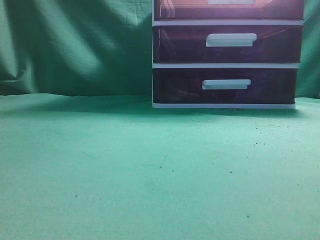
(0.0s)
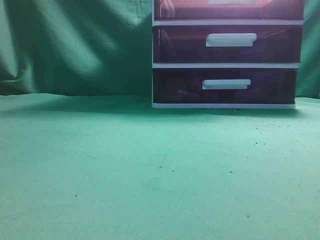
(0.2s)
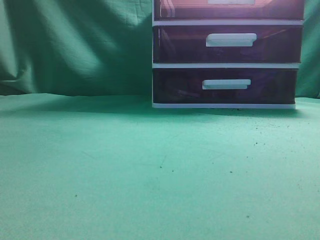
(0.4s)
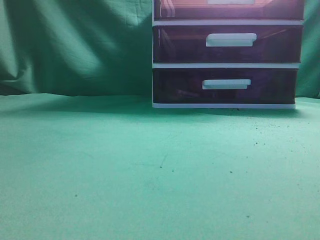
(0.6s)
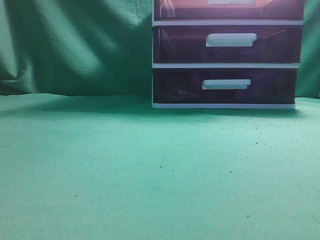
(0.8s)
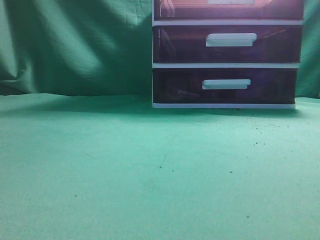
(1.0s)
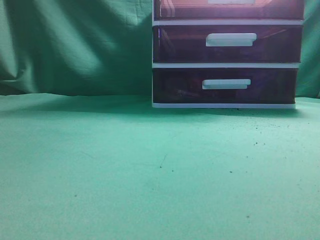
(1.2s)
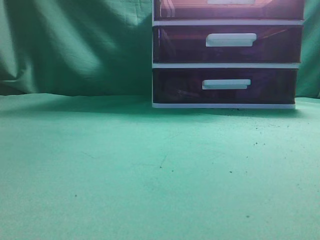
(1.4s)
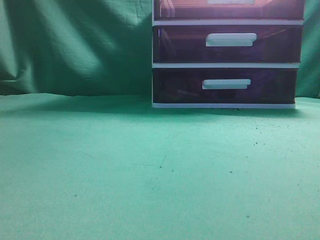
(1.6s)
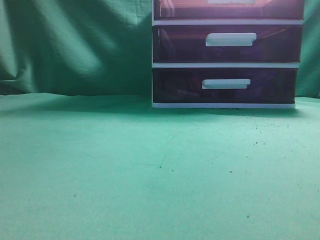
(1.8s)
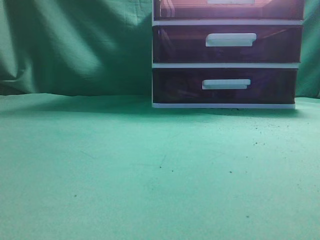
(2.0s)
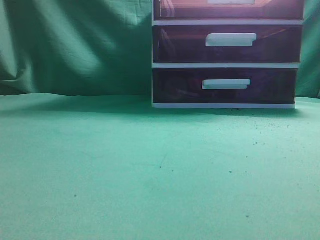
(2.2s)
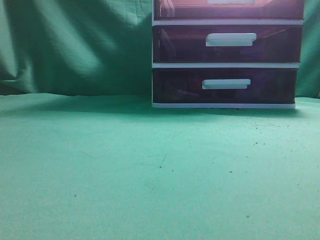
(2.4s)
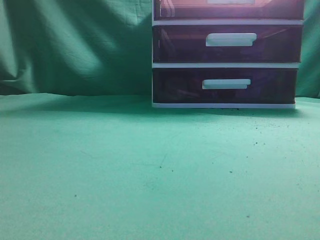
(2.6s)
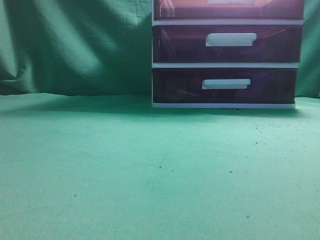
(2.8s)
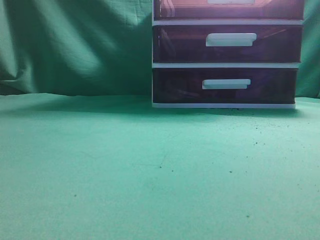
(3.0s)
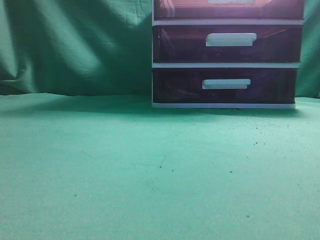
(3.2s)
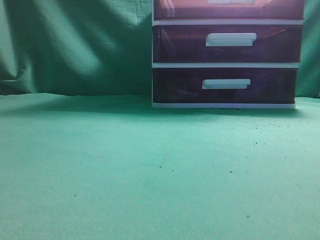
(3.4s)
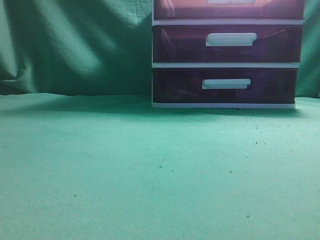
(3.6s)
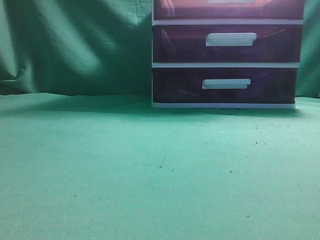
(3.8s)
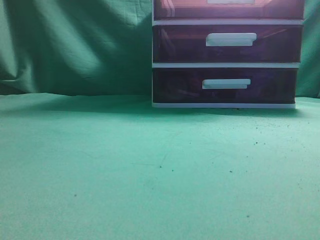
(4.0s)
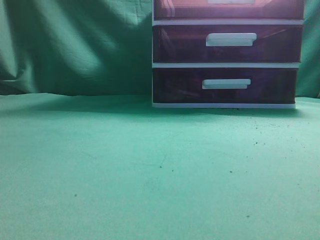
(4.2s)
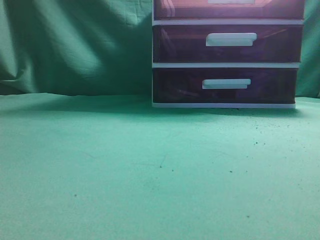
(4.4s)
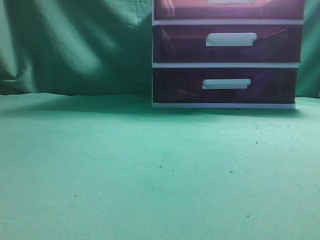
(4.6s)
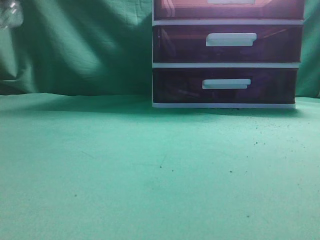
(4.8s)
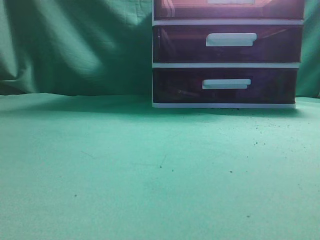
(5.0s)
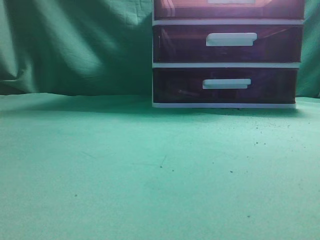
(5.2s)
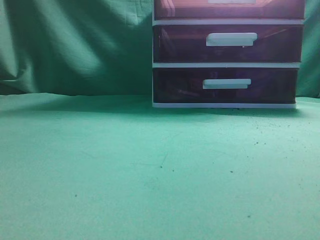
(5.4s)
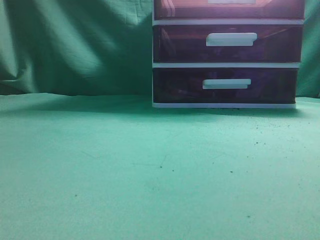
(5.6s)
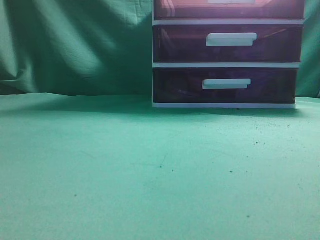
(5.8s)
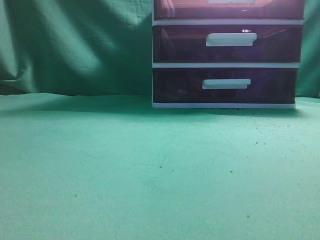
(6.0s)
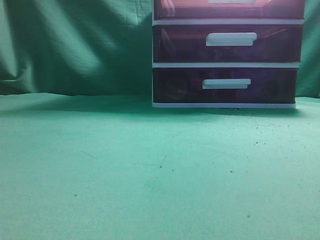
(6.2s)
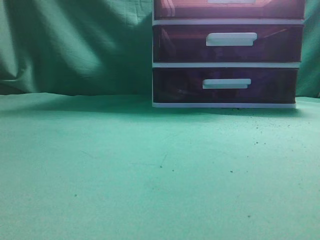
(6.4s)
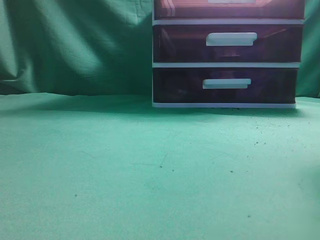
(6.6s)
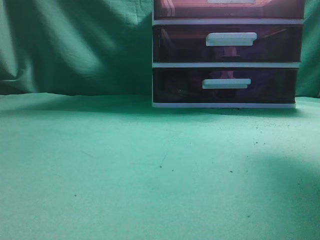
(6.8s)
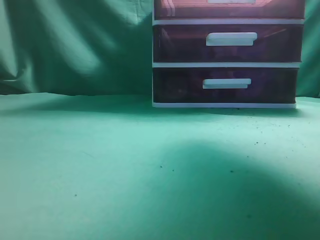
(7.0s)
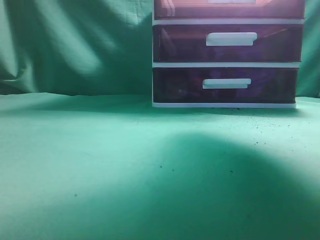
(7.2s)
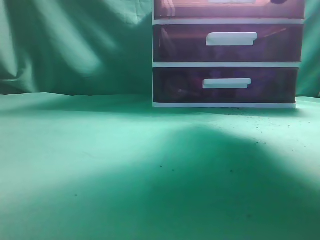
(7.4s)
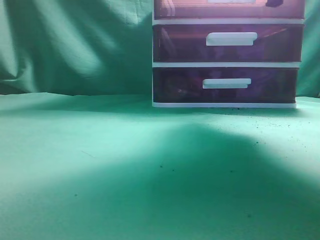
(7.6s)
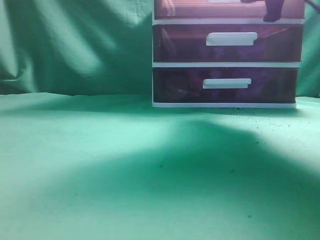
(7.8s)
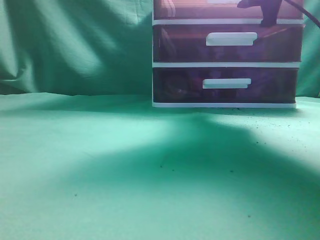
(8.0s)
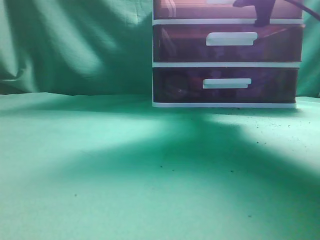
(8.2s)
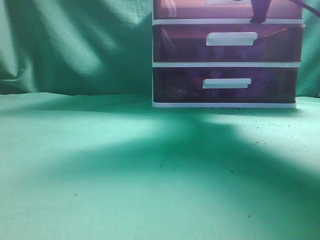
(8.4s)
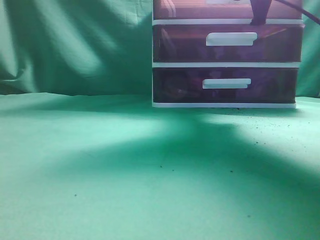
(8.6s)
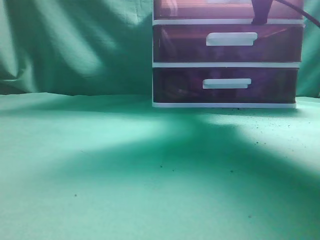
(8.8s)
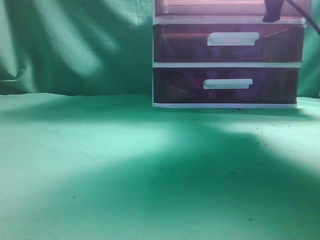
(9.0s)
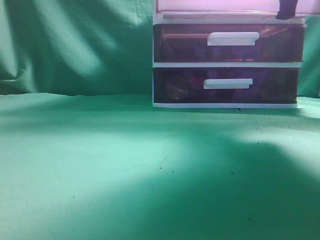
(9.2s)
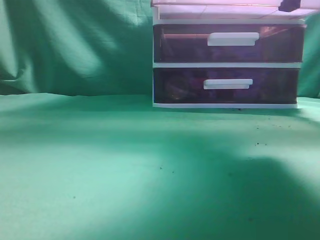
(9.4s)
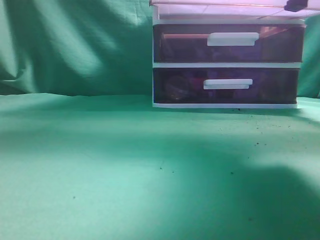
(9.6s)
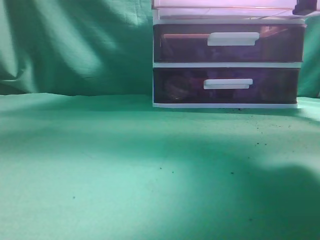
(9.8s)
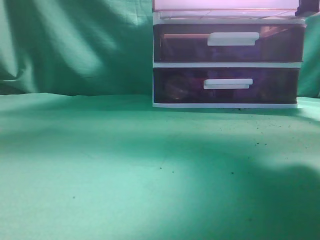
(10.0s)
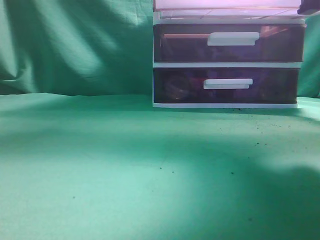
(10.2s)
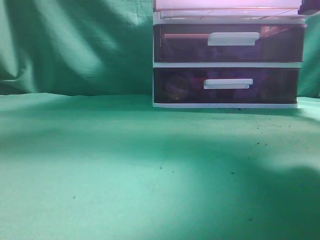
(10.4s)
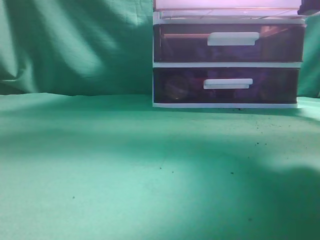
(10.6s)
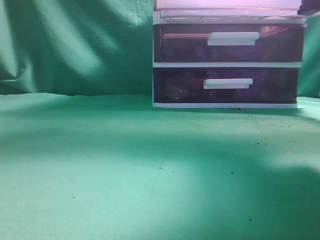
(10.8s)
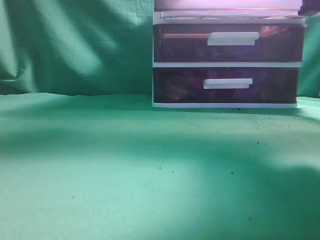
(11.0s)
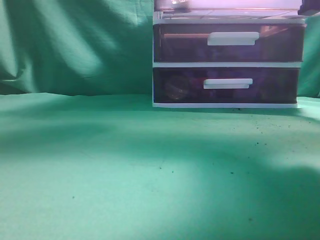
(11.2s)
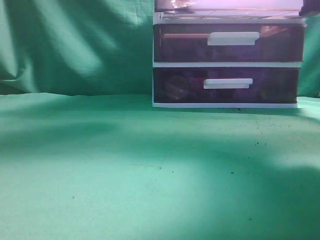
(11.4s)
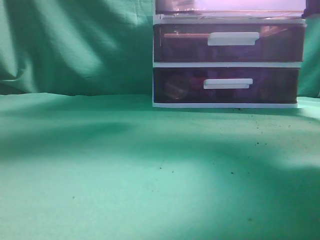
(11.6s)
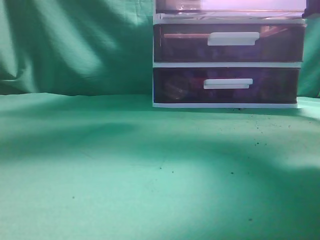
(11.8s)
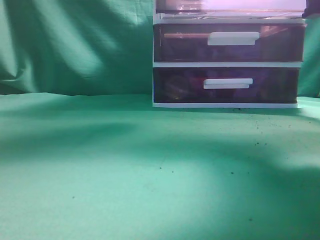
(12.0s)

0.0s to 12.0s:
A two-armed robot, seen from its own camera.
Task of the whole recording: place the water bottle into the drawer.
Step, 0.0s to 10.4s: Open the drawer.
6.0s to 7.6s: The right gripper is displaced forward by roughly 30 cm, and opens its fingers.
7.6s to 9.0s: The right gripper closes up.
9.0s to 10.4s: The left gripper travels upward by about 5 cm; the right gripper goes approximately 10 cm backward.
10.4s to 12.0s: The left gripper travels forward, to the right and downward by about 20 cm, and opens up.

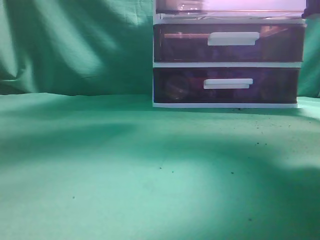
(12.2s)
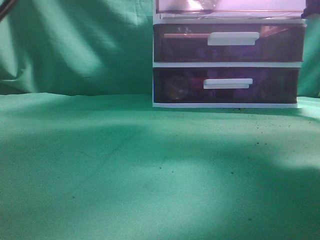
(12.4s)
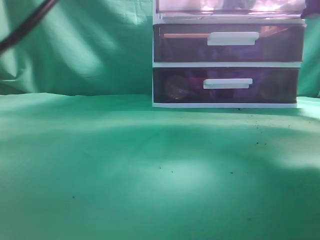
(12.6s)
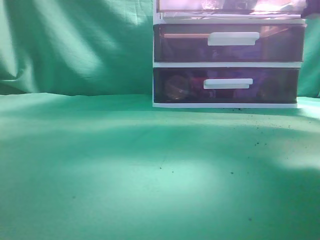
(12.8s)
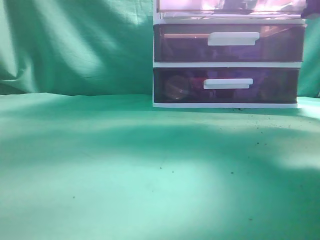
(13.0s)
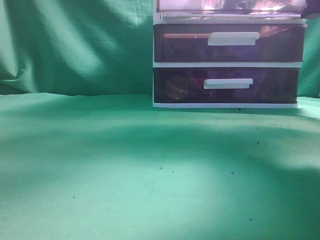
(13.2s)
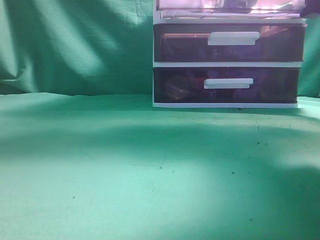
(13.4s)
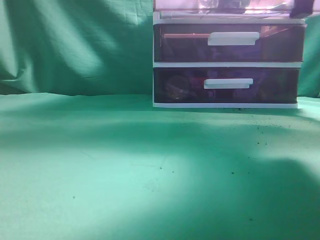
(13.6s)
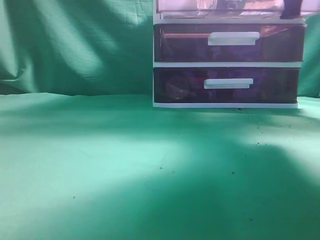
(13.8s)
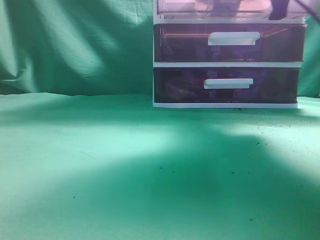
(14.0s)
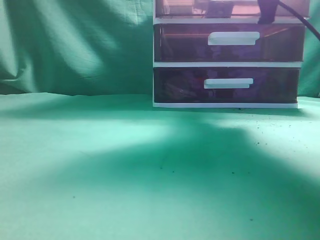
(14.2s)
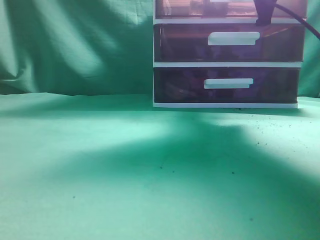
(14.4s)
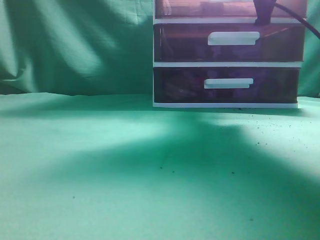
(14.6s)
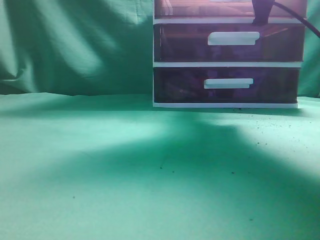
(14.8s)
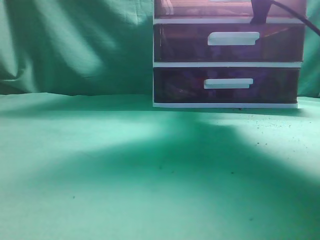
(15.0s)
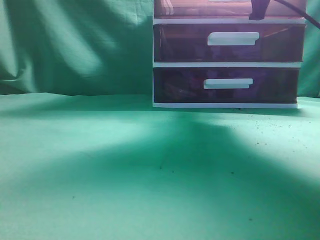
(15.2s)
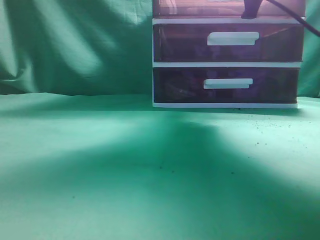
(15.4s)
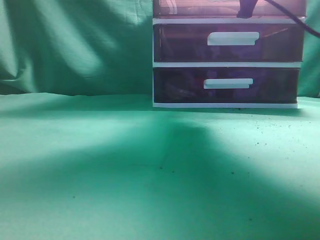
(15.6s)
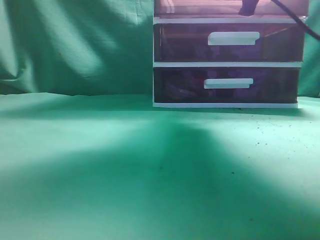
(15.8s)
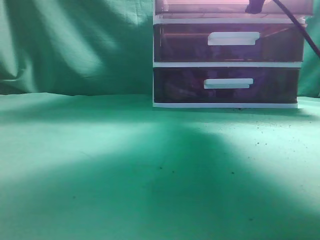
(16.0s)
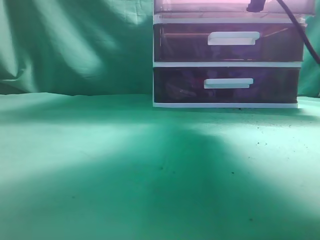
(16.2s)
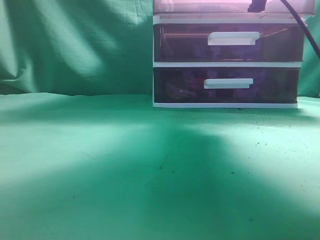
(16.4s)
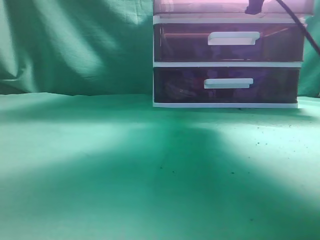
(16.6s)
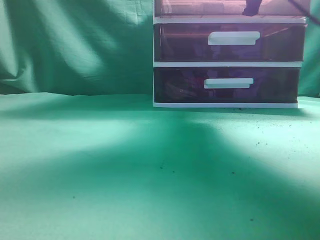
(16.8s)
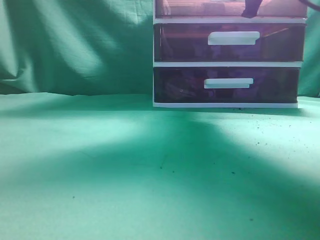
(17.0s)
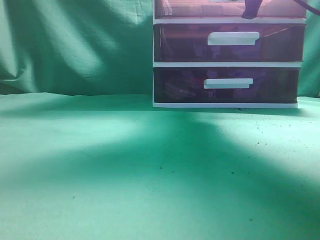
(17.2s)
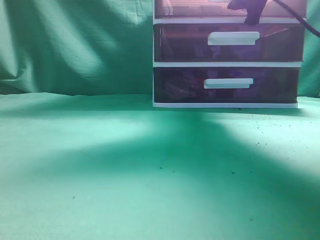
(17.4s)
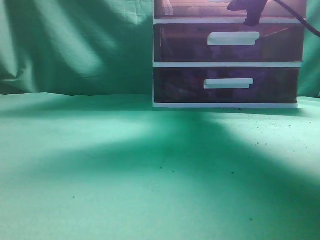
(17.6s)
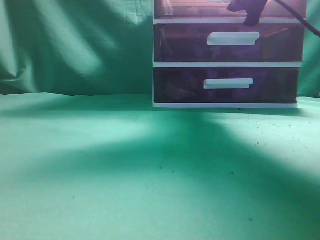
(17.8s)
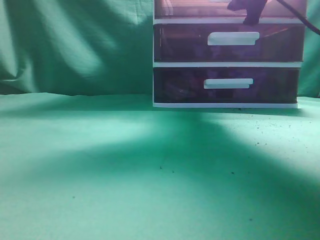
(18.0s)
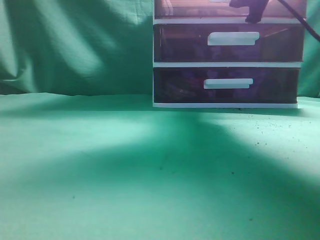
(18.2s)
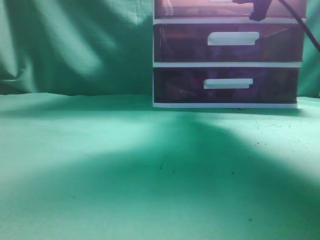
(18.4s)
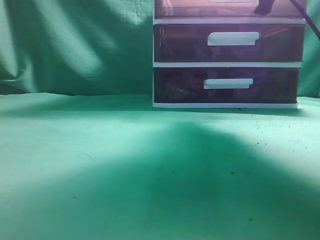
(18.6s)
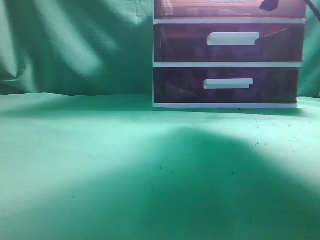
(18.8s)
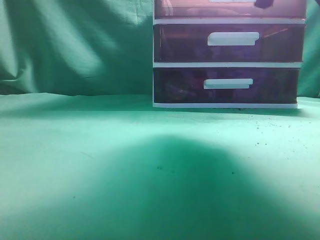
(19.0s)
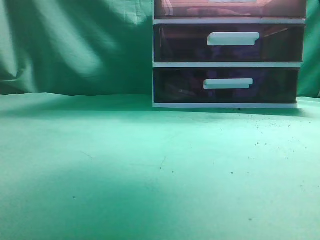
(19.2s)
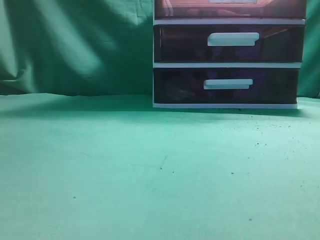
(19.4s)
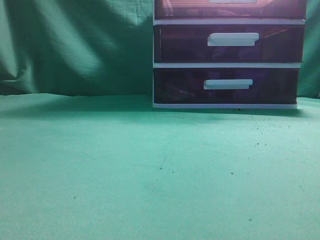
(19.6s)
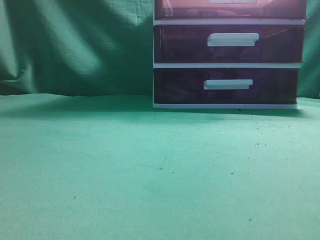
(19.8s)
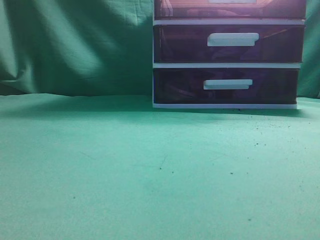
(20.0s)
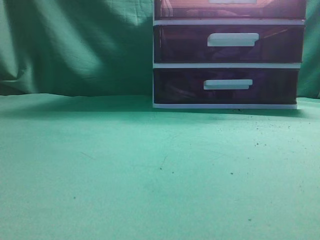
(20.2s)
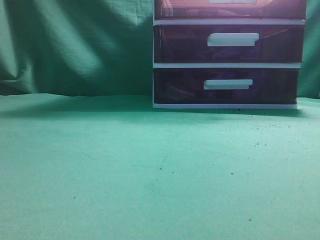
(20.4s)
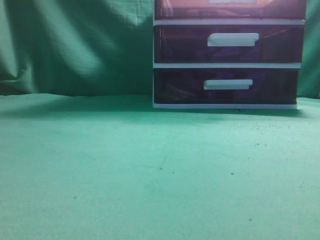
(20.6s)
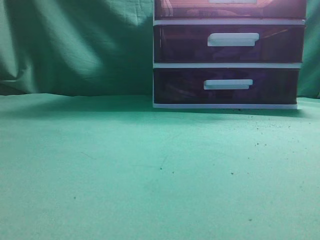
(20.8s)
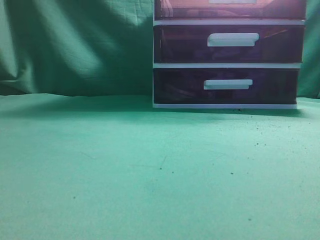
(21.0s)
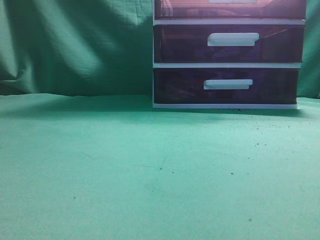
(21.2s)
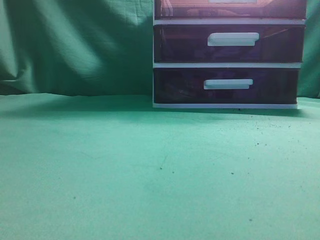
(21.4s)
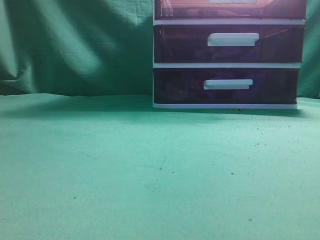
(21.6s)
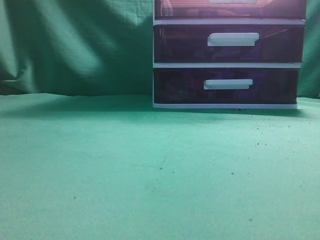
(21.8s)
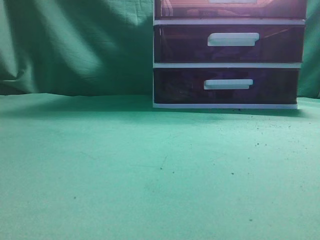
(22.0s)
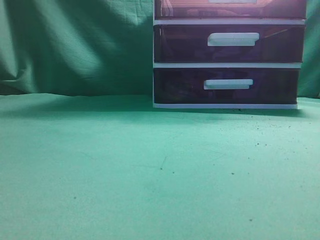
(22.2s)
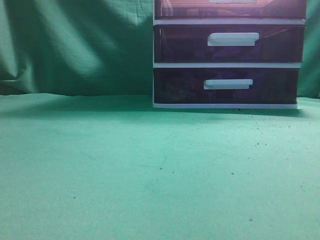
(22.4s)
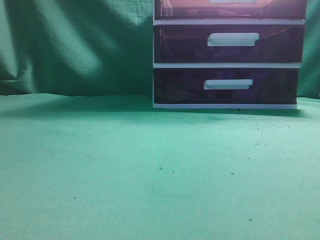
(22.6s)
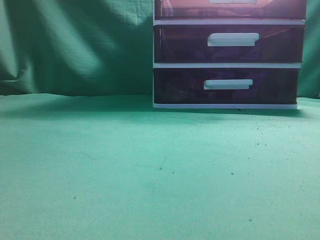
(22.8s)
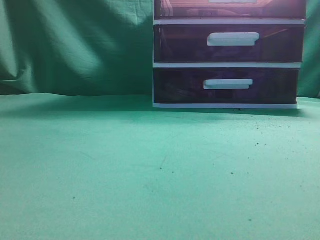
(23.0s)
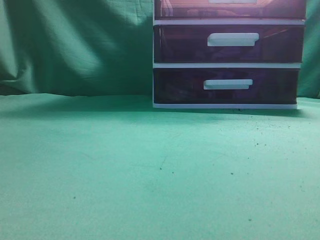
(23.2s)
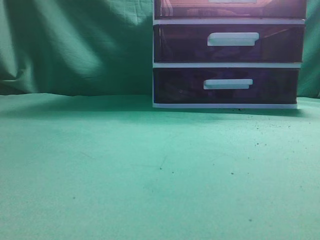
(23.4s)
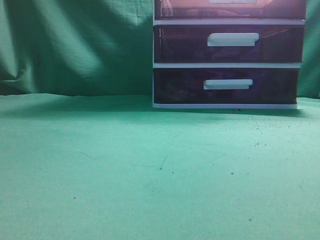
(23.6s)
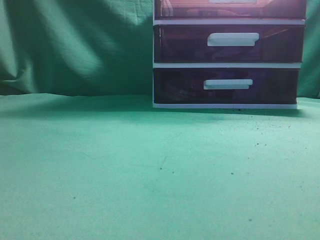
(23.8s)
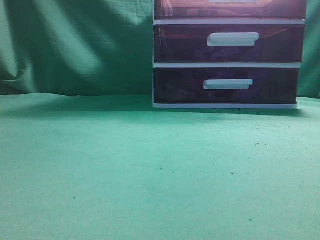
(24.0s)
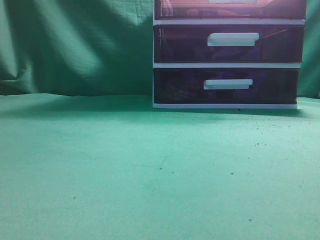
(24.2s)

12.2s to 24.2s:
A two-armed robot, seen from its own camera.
Task of the whole recording: place the water bottle into the drawer.
Step, 13.0s to 18.4s: Close the drawer.
12.2s to 13.8s: The left gripper is displaced upward, backward and to the left by approximately 20 cm, and closes its fingers; the right gripper shifts by some 5 cm.
13.8s to 15.2s: The left gripper changes place by approximately 5 cm. Meanwhile the right gripper shifts about 10 cm forward, and opens its fingers.
18.2s to 19.8s: The right gripper shifts approximately 30 cm backward and upward, and closes; the left gripper heads backward, to the left and upward, covering some 20 cm.
